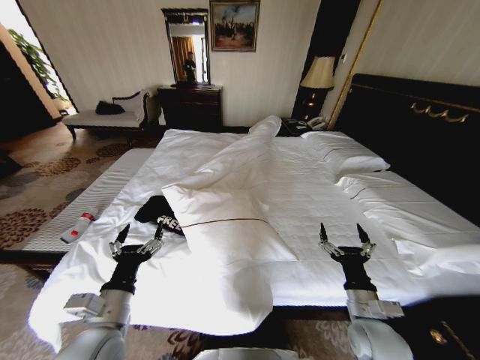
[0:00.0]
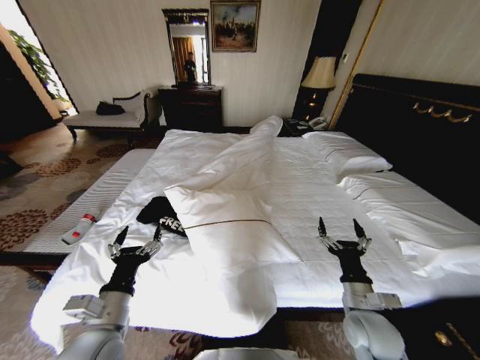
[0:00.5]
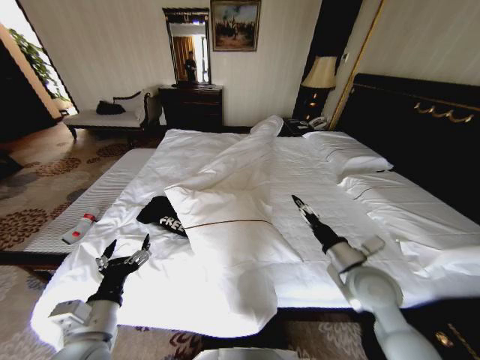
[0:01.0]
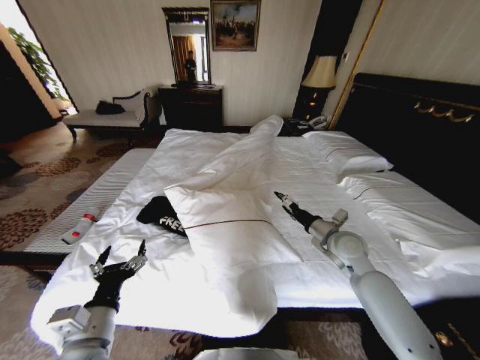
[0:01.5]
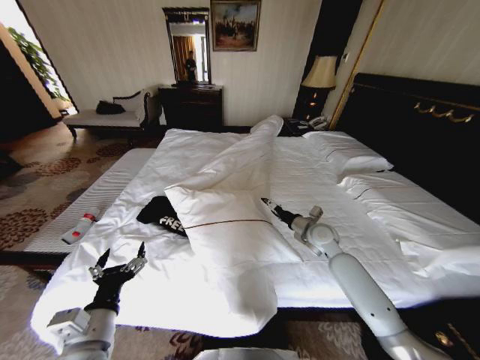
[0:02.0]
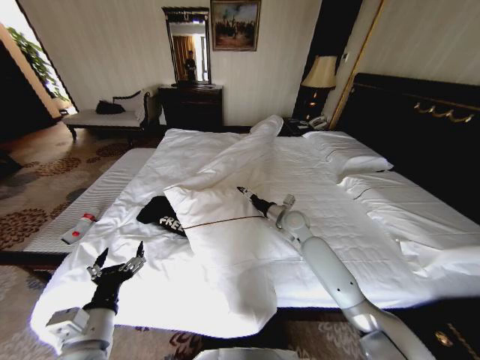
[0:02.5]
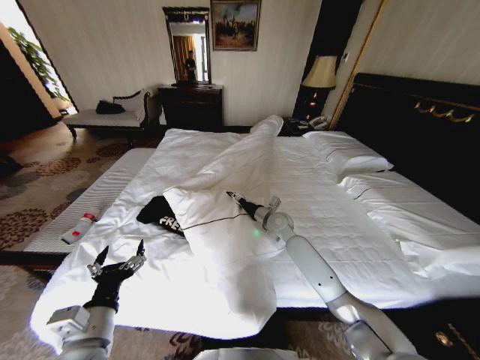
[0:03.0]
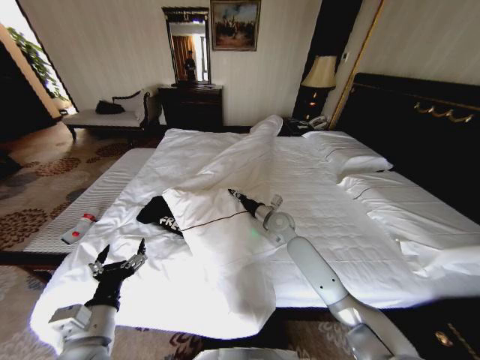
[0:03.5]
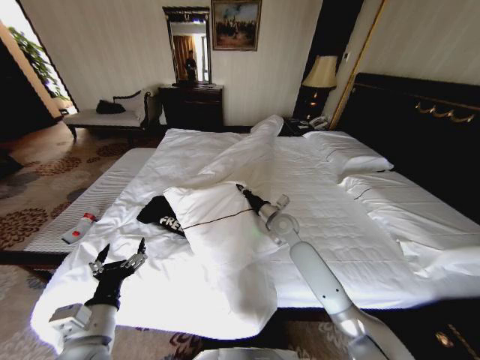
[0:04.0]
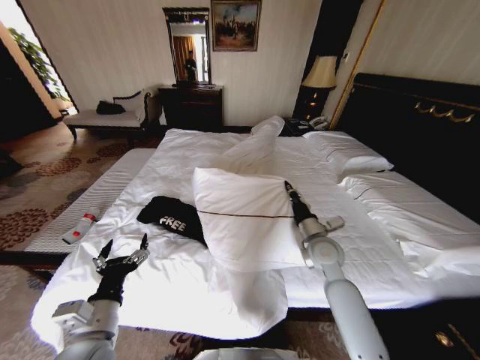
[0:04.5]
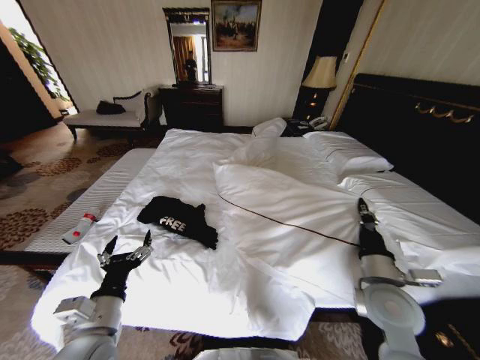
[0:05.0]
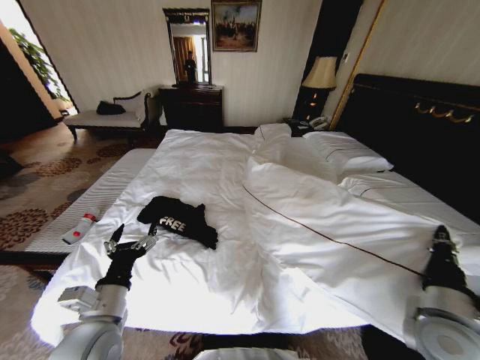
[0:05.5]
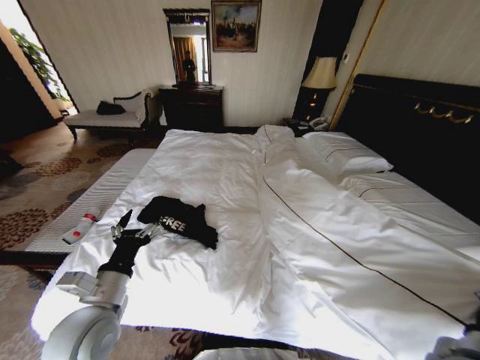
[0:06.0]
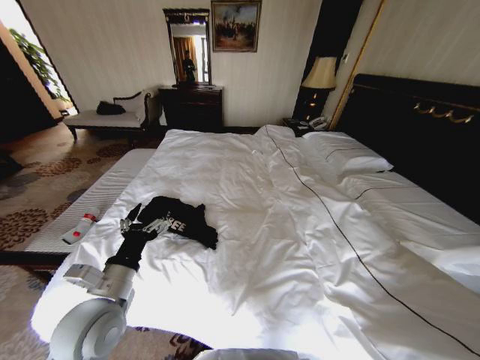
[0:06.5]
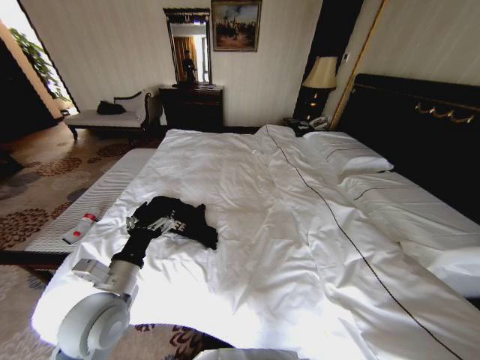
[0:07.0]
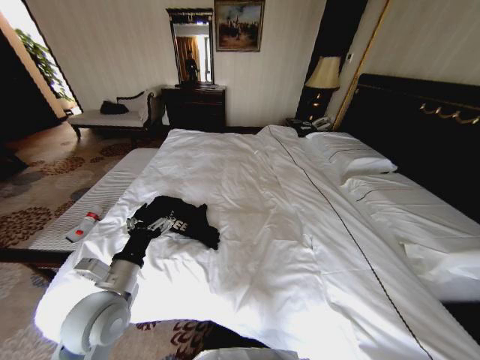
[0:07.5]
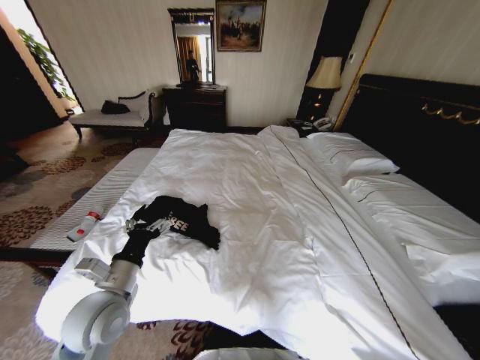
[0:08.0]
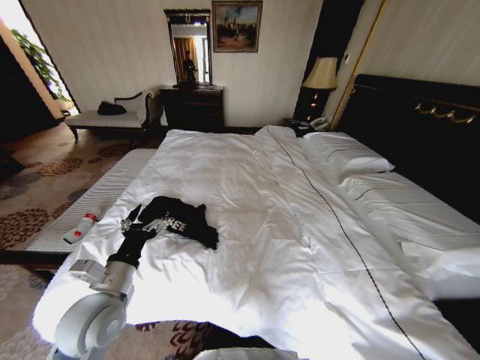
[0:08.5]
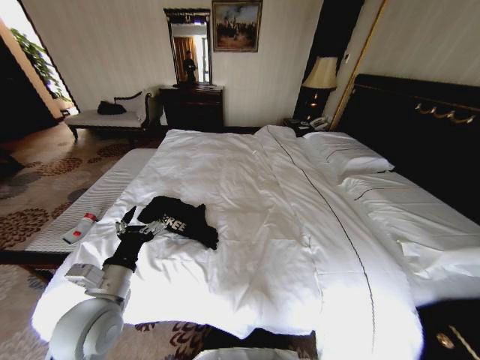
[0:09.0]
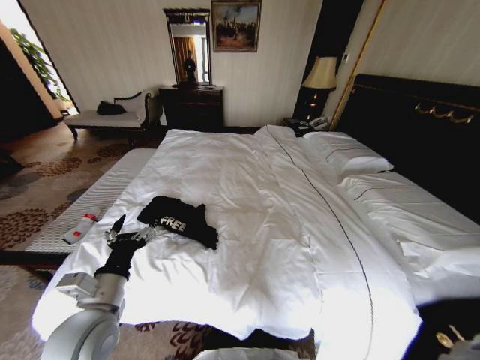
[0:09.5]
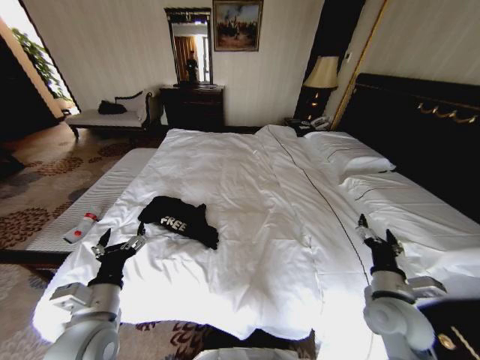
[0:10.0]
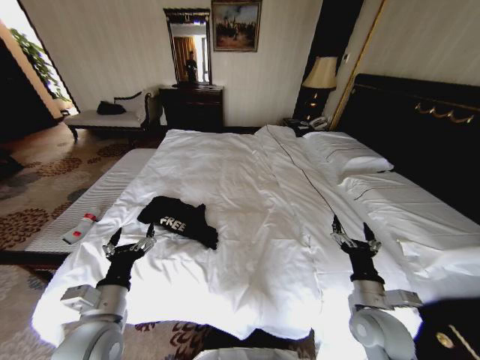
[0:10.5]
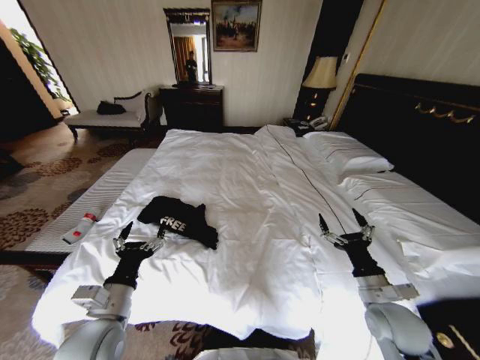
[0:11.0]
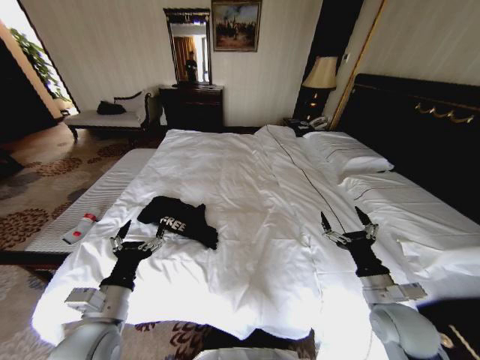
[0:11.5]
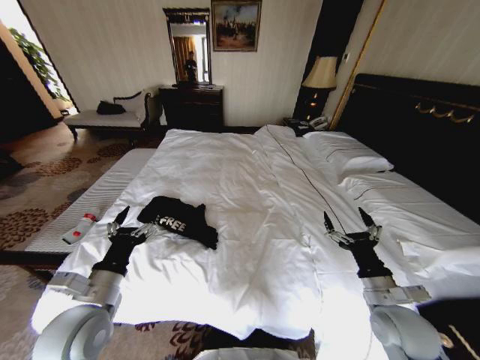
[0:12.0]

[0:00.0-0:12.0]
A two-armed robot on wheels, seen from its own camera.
Task of the whole recording: Fold the clothes on the bed.
0:00.0 to 0:02.0: The right gripper heads forward, covering some 25 cm.
0:02.0 to 0:04.0: The right gripper moves to the left, some 10 cm, and closes.
0:04.0 to 0:06.0: The right gripper shifts approximately 40 cm backward and to the right. The left gripper shifts by approximately 5 cm.
0:06.0 to 0:08.0: The right gripper moves downward and backward, some 15 cm.
0:08.0 to 0:10.0: The right gripper shifts roughly 20 cm forward and upward, and opens.

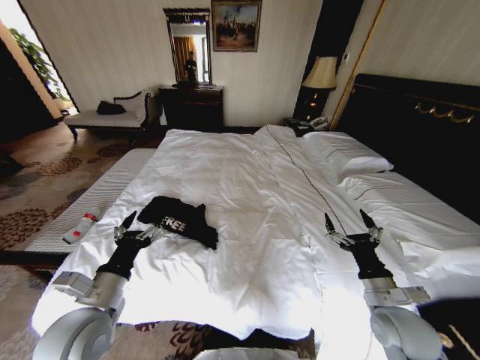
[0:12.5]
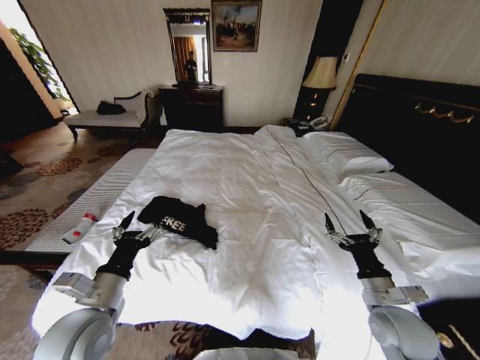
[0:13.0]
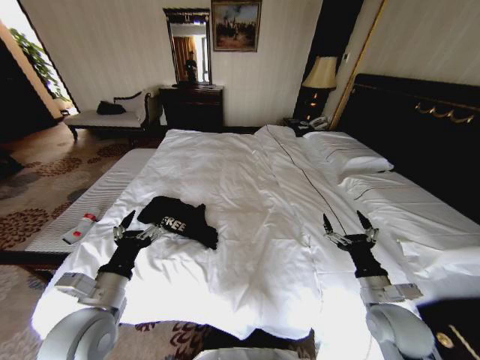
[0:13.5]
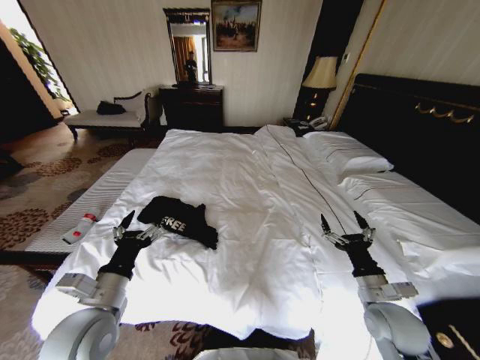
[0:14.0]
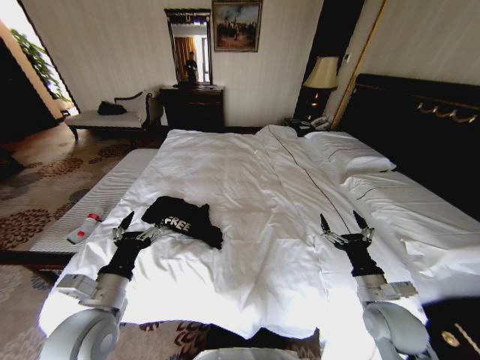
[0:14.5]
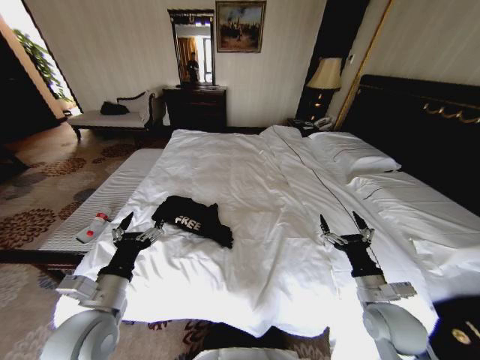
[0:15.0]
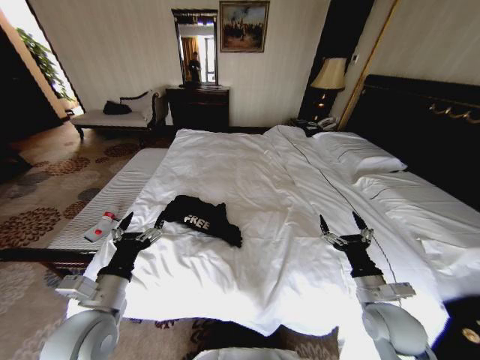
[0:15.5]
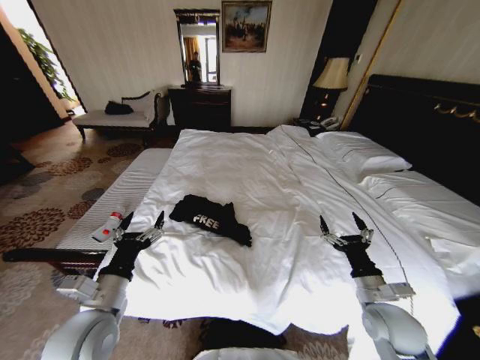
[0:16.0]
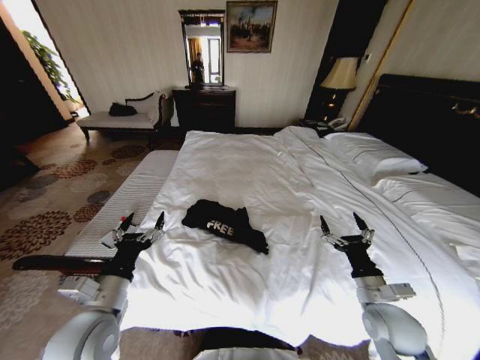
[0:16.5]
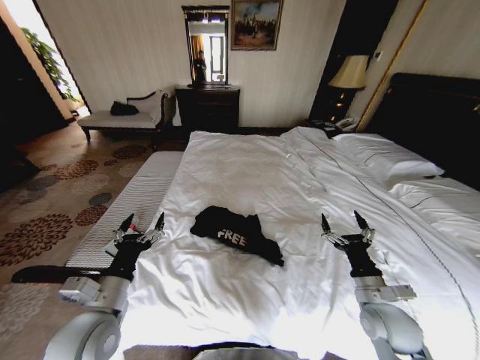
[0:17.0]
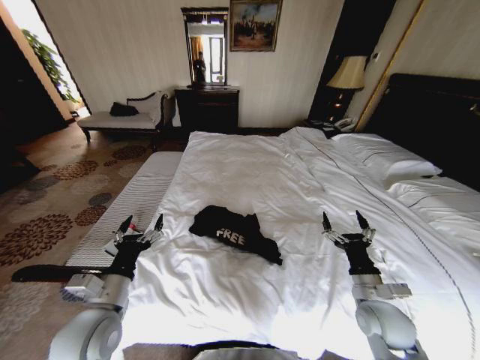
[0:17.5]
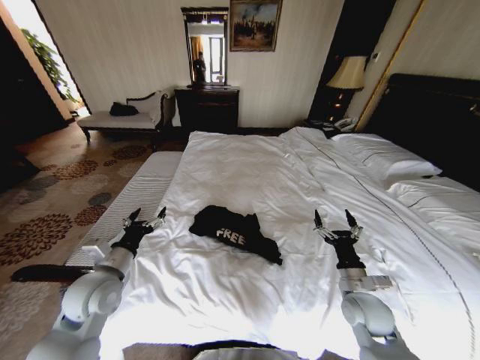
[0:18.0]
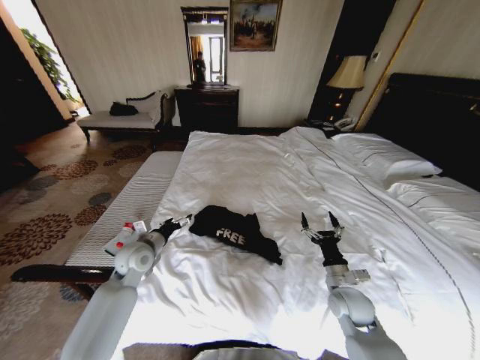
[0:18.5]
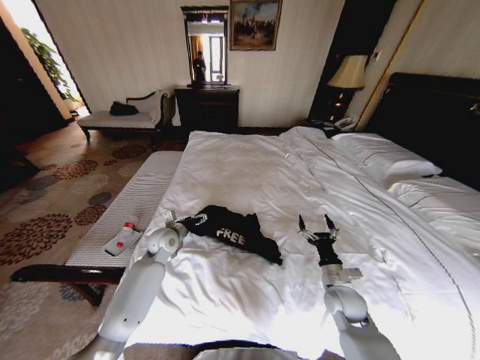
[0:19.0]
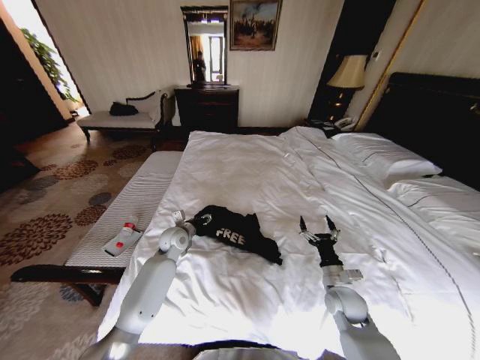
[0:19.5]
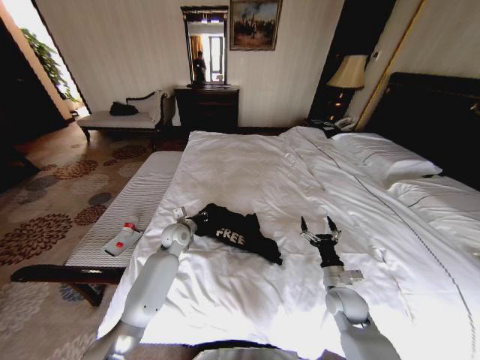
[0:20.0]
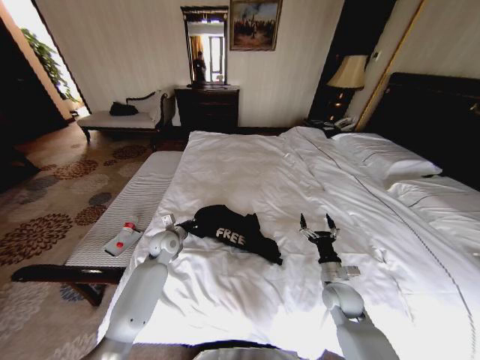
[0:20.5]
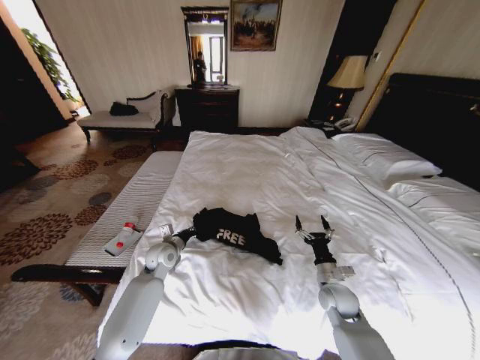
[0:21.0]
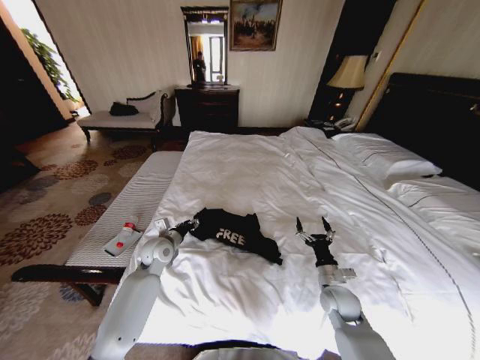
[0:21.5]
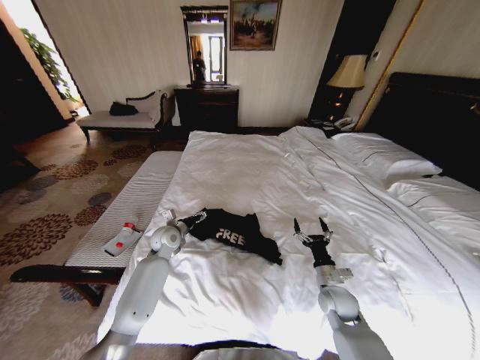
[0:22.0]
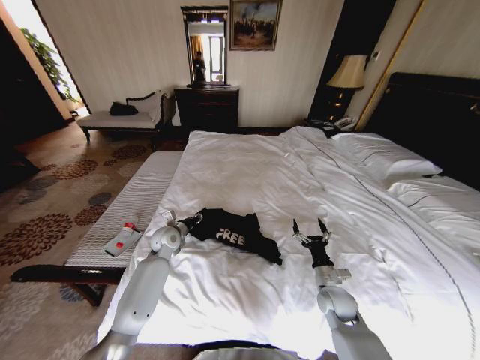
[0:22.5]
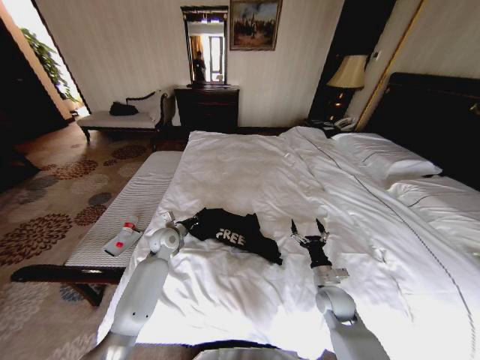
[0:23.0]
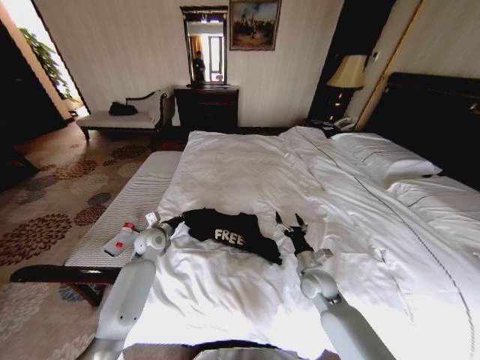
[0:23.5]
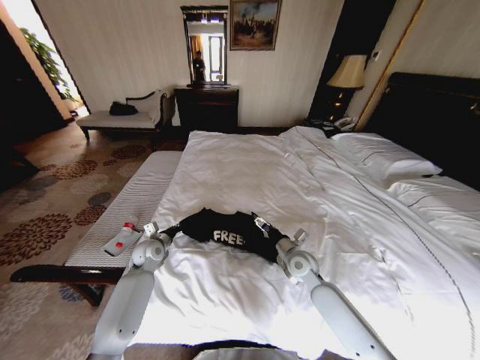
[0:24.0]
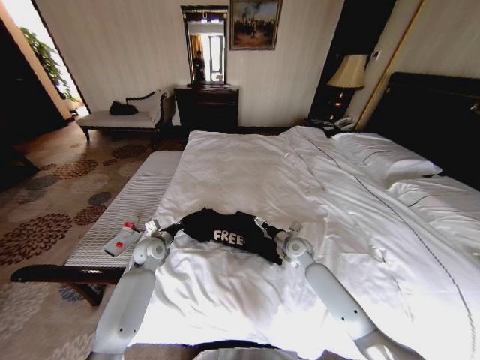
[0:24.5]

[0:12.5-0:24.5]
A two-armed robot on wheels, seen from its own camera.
Task of the whole recording: Fold the clothes on the bed.
0:12.5 to 0:14.5: The grippers stay close to where they were, moving slightly.
0:16.5 to 0:18.5: The left gripper goes approximately 20 cm forward. The right gripper travels downward and forward by some 10 cm.
0:18.5 to 0:20.5: The left gripper moves forward and to the right, about 10 cm, and closes.
0:20.5 to 0:22.5: The left gripper opens.
0:22.5 to 0:24.5: The left gripper moves to the left, some 5 cm, and closes. The right gripper is displaced forward and to the left by approximately 15 cm.

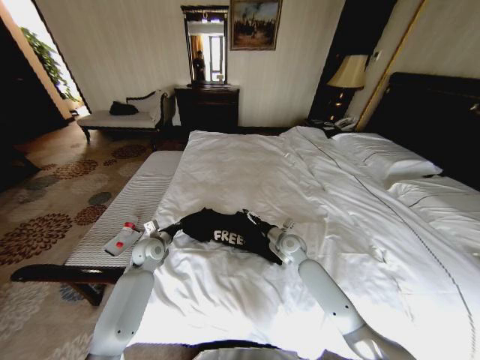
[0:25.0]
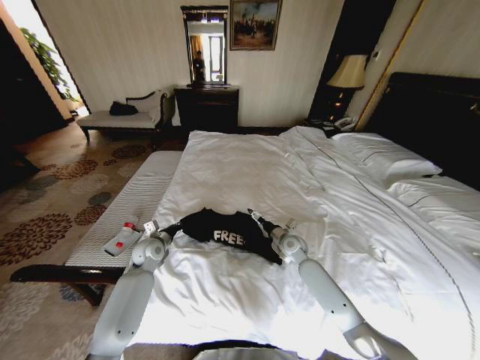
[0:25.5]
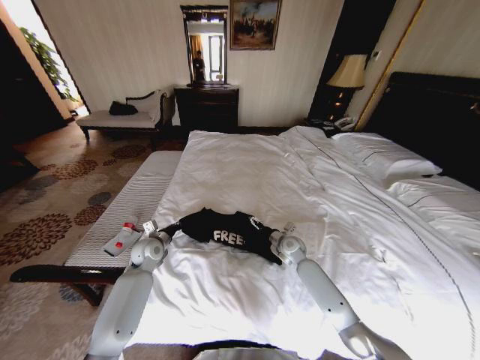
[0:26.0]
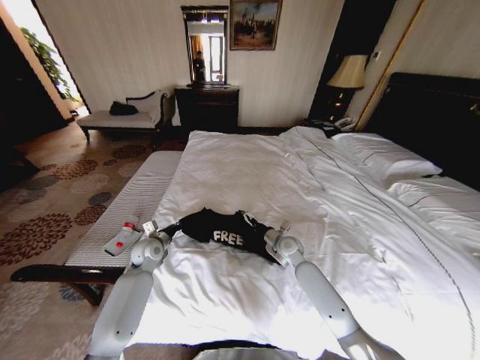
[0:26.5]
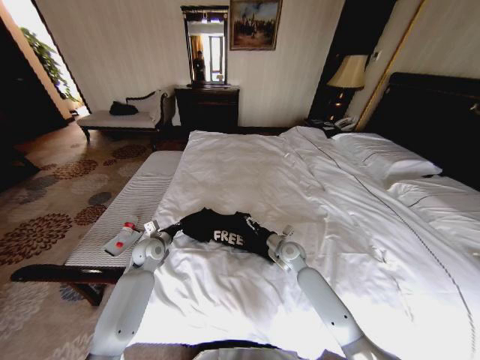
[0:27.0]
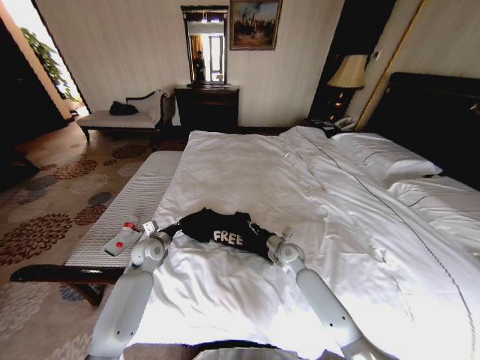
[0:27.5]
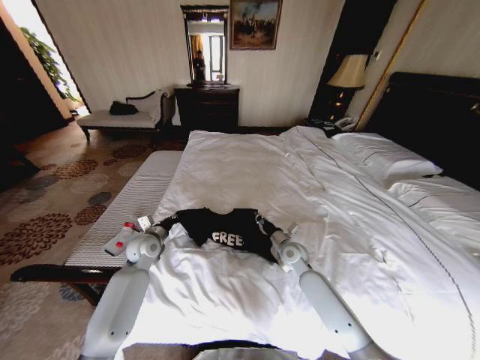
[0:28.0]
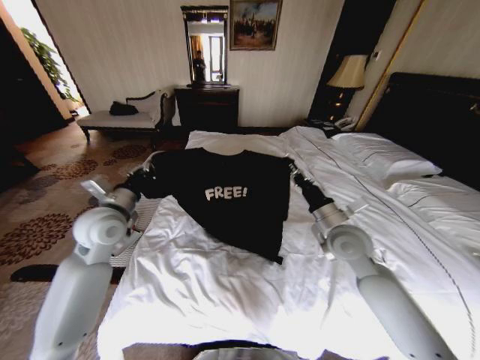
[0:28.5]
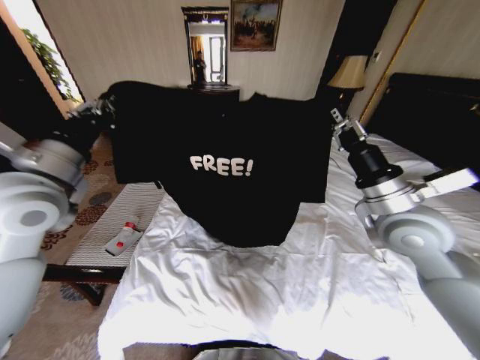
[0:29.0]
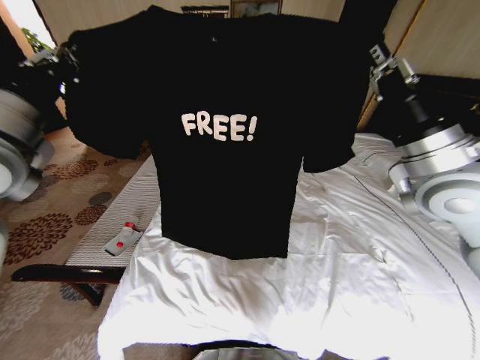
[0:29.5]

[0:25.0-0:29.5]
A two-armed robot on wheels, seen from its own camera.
Task of the whole recording: Fold the clothes on the bed.
0:25.0 to 0:27.0: The grippers make only small movements.
0:27.0 to 0:29.5: Both grippers travel together upward, approximately 40 cm. The right gripper closes up.
